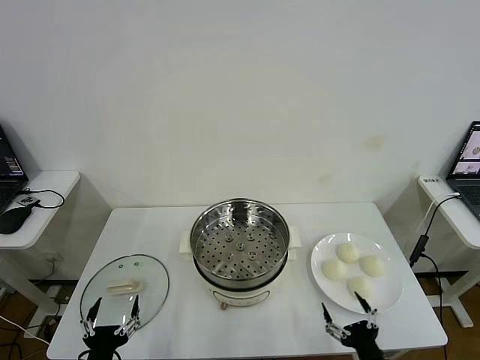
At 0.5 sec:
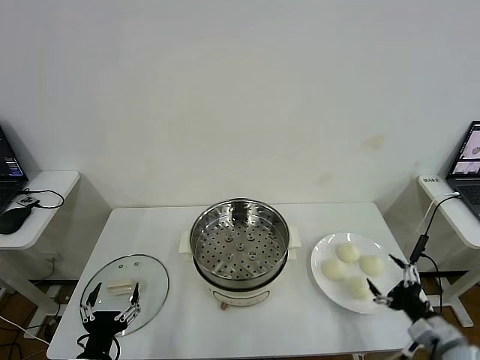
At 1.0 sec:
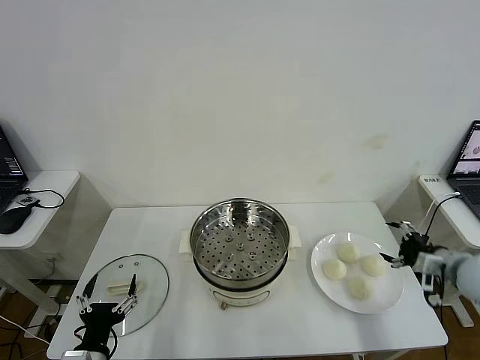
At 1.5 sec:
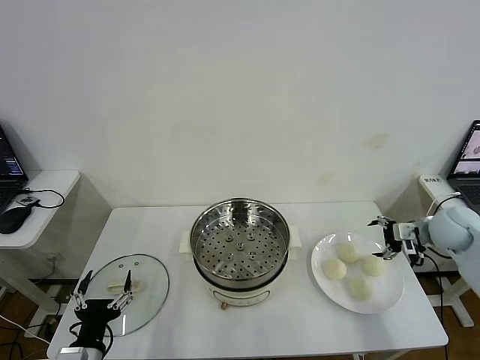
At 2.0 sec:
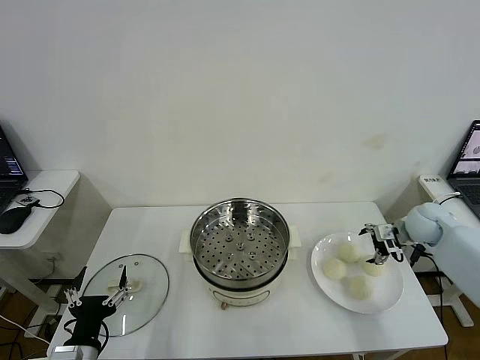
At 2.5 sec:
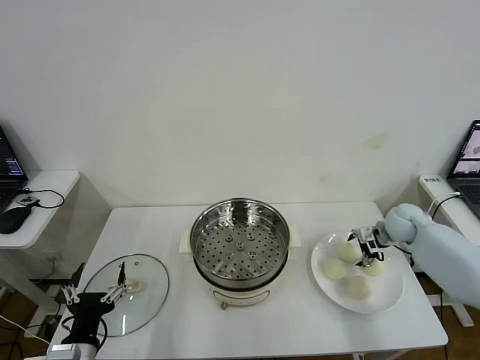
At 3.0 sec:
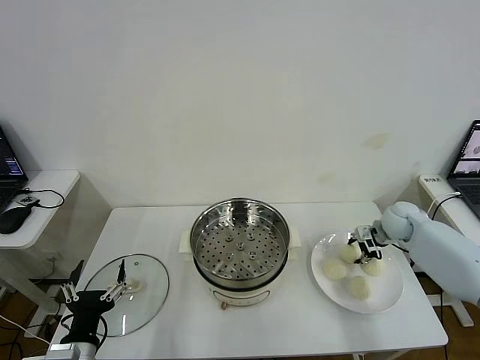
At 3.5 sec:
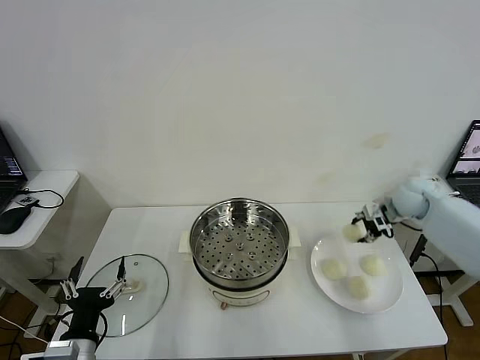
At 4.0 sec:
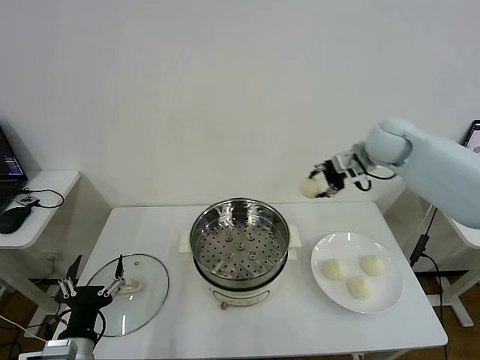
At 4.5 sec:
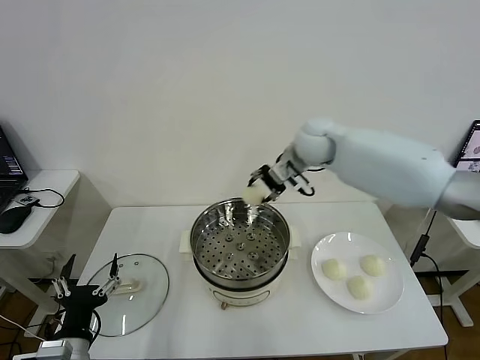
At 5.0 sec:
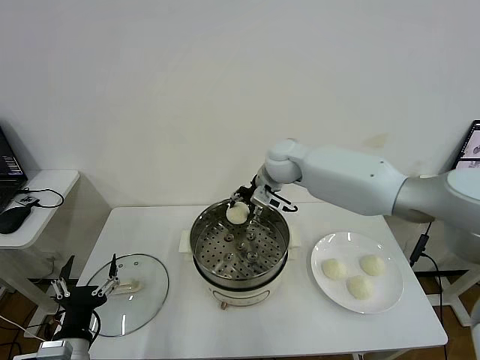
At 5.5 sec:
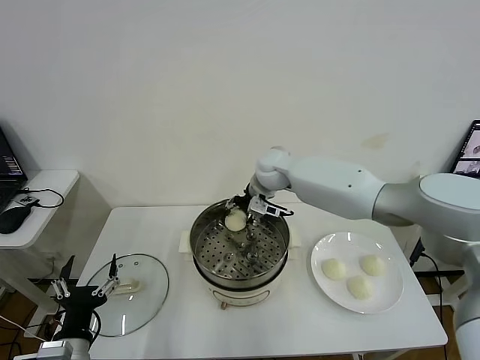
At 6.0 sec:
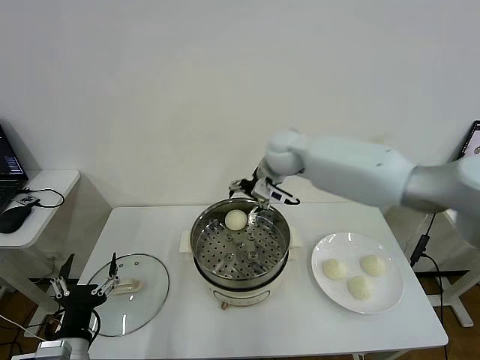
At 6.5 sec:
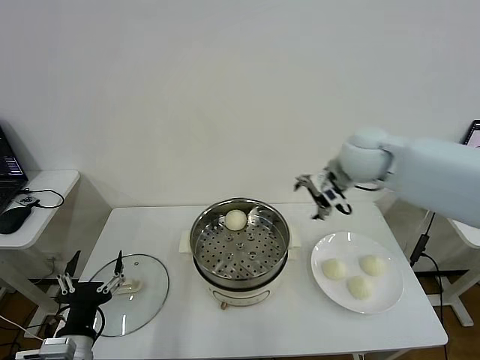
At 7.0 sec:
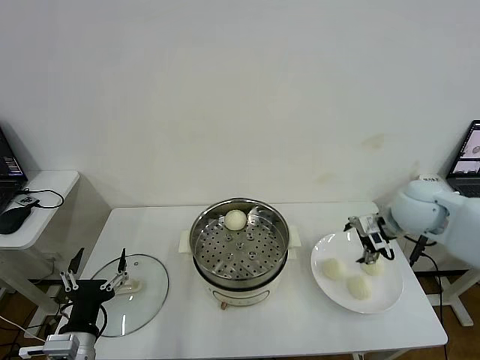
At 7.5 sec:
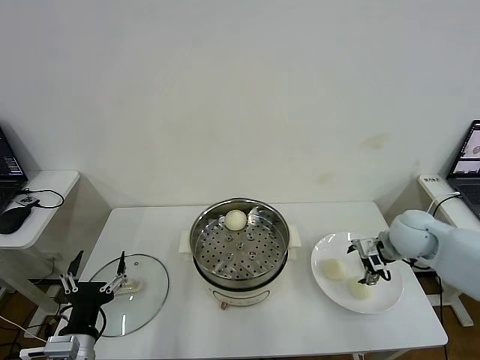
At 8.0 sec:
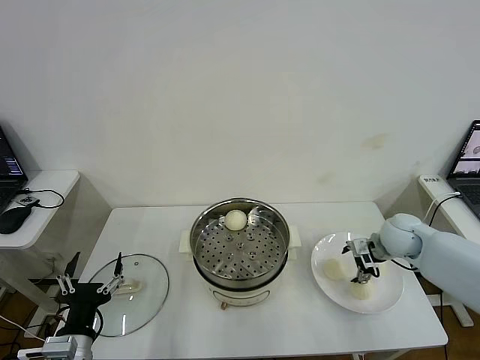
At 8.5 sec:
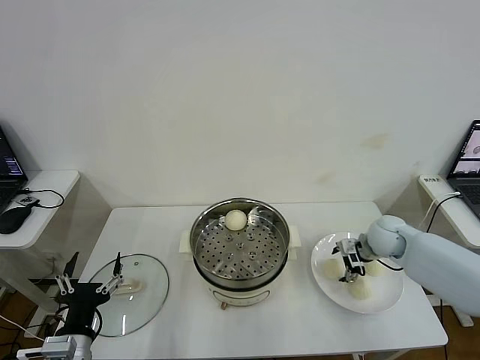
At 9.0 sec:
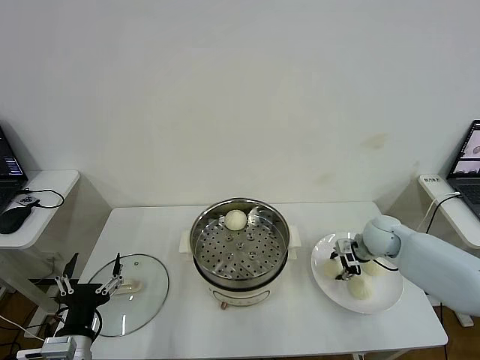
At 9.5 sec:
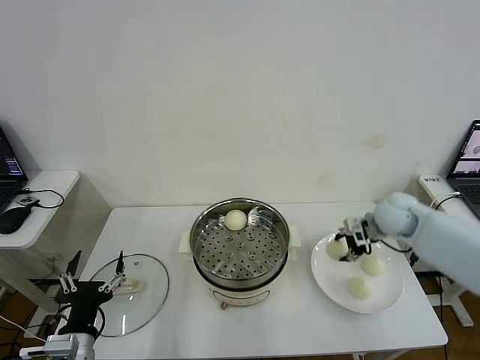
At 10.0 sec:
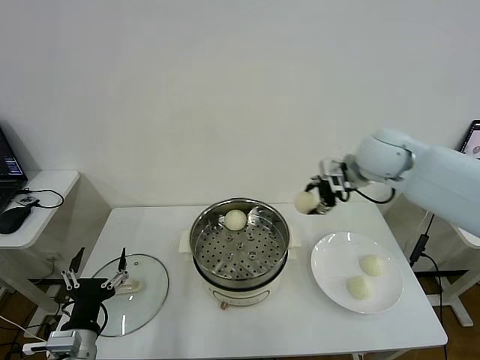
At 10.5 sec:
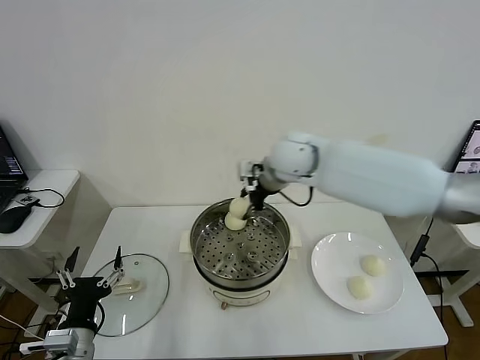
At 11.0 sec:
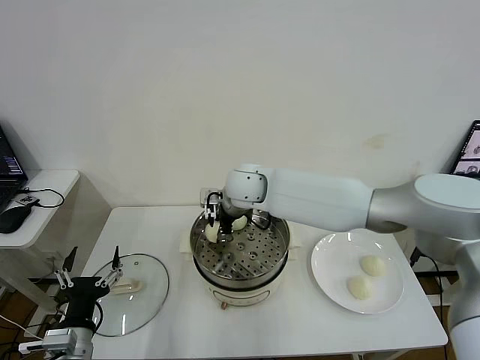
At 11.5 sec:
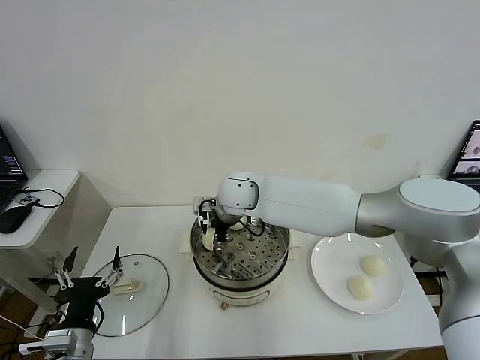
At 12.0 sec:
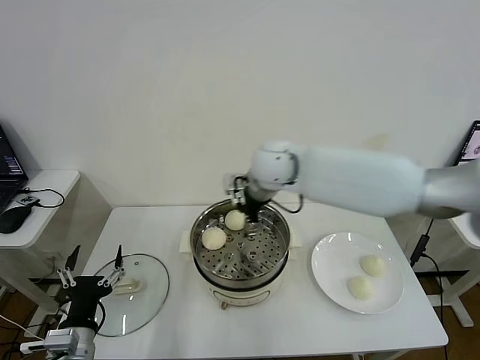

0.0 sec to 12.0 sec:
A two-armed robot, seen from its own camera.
Step, 0.0 sec to 2.5 sec: Grasp the baozi in the plate with right gripper.
Step, 3.0 sec to 5.5 sec: Place the baozi on the steamer with right gripper.
Step, 6.0 sec to 9.0 sec: Grasp the baozi in the plate with right gripper.
Step, 9.5 sec to 11.5 sec: Place the baozi on the steamer with right gripper.
2.0 sec to 4.0 sec: The right gripper goes about 25 cm upward and to the left, and closes.
4.0 sec to 6.0 sec: The right gripper goes approximately 15 cm to the left, and opens its fingers.
6.0 sec to 8.0 sec: The right gripper heads to the right and downward, covering about 30 cm.
8.0 sec to 10.0 sec: The right gripper moves upward and to the left, about 25 cm, and closes.
10.0 sec to 12.0 sec: The right gripper goes some 15 cm to the left, and opens its fingers.

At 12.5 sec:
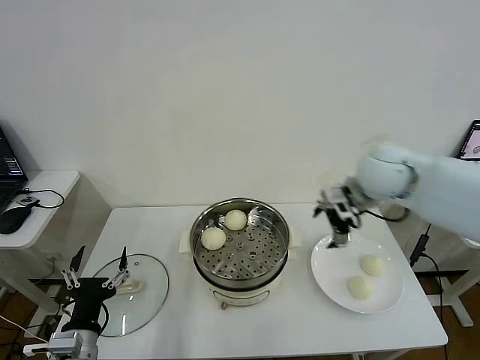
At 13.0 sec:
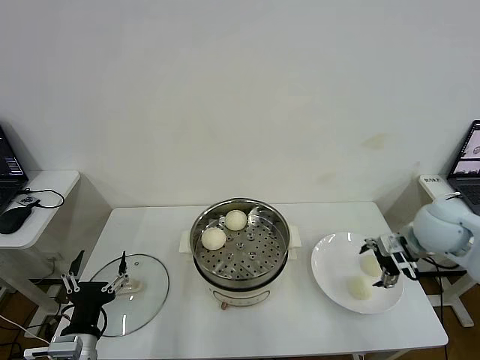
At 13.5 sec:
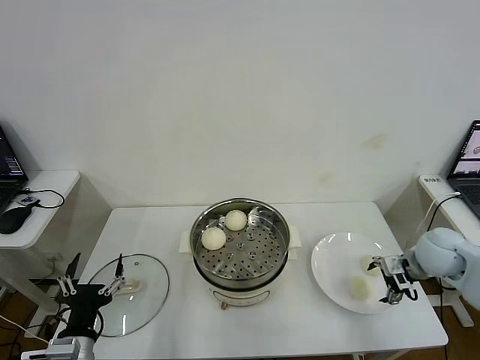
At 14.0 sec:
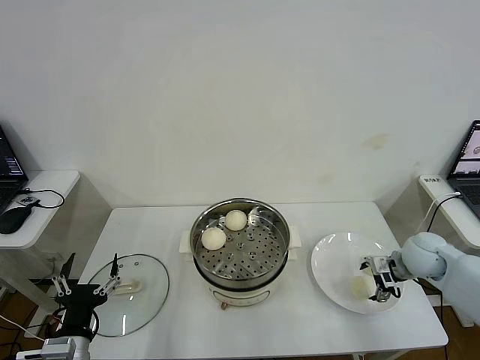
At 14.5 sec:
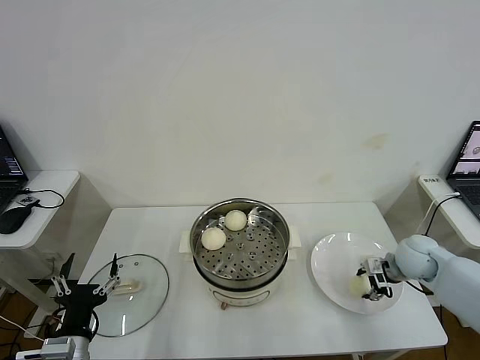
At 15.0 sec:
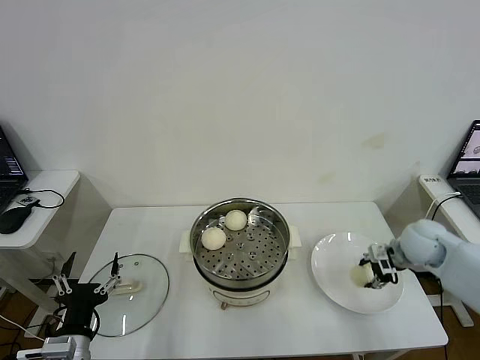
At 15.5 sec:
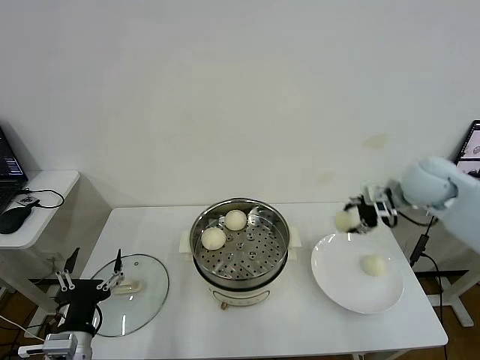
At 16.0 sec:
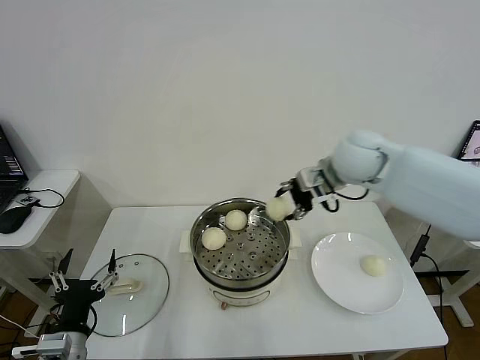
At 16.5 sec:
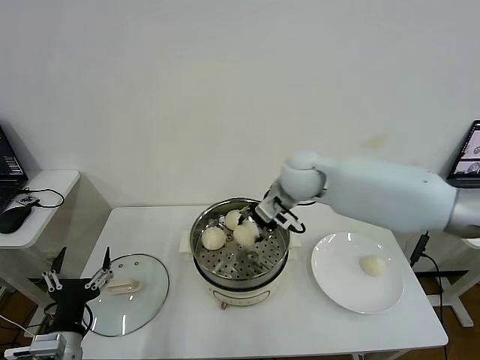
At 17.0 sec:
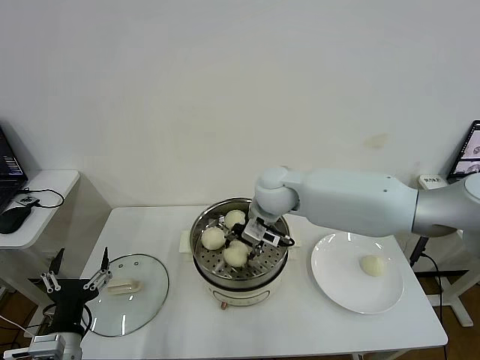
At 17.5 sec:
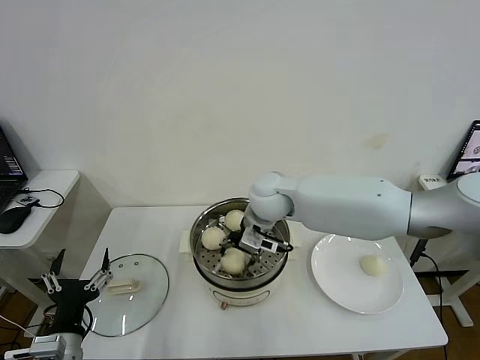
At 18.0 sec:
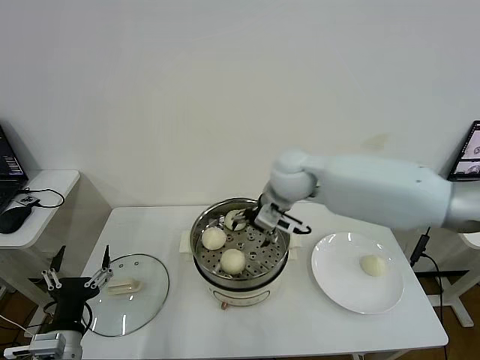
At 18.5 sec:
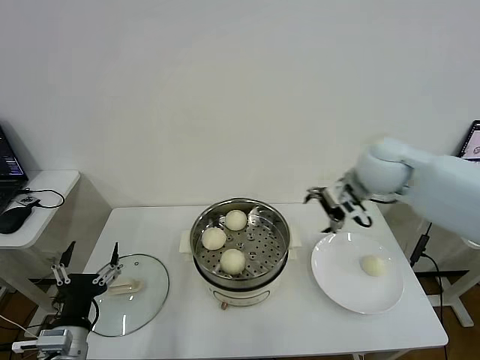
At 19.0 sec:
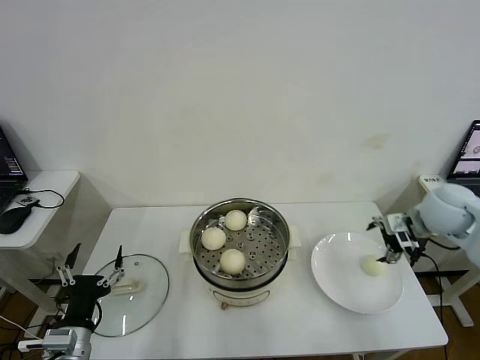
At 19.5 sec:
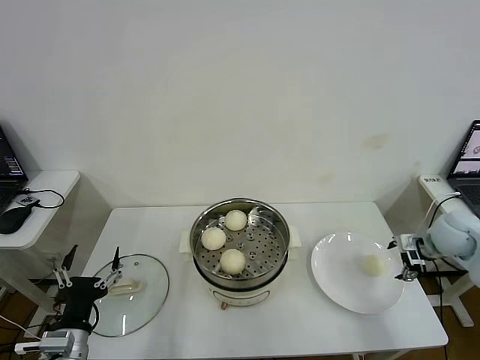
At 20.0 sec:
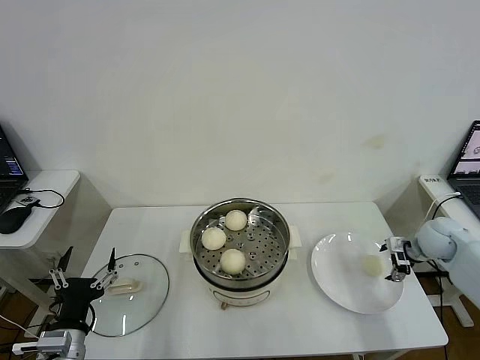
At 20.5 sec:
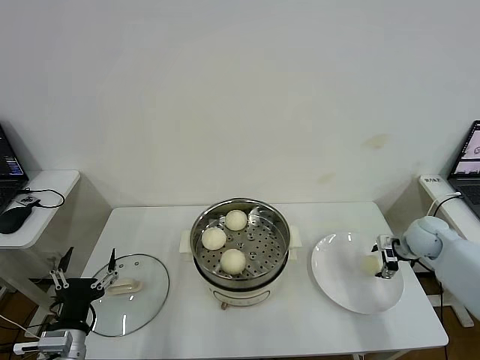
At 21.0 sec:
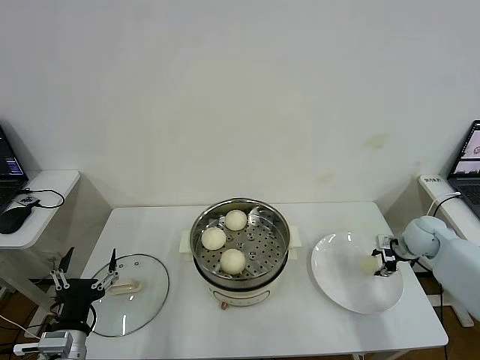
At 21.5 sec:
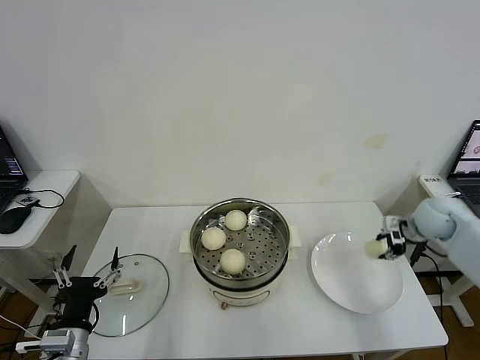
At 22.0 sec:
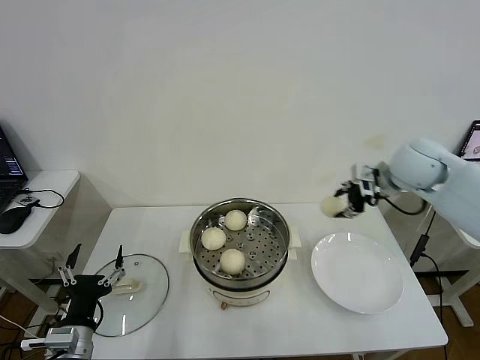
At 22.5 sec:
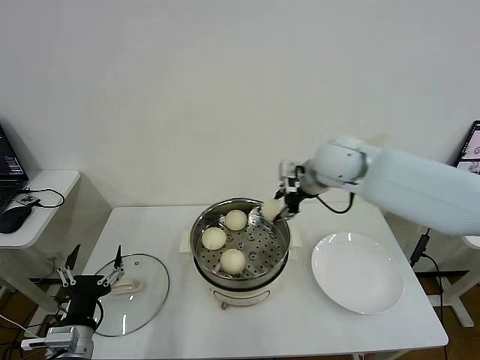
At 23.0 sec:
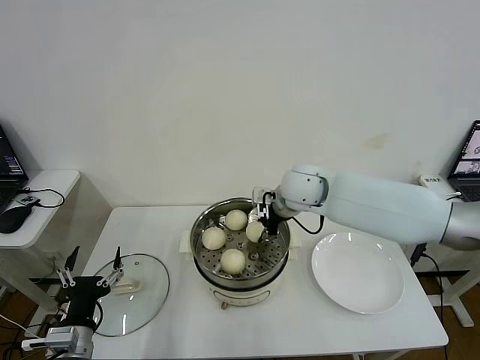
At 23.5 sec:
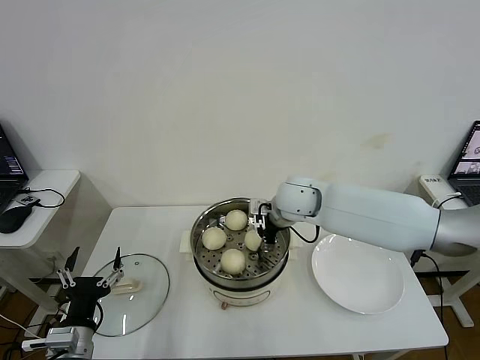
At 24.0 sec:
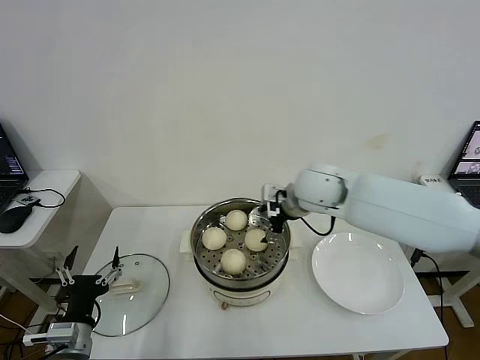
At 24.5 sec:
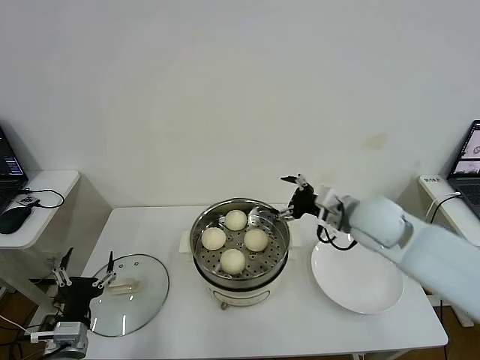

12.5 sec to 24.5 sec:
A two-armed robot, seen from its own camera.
Step, 12.5 sec to 14.0 sec: Grasp the baozi in the plate with right gripper.
Step, 15.0 sec to 17.5 sec: Place the baozi on the steamer with right gripper.
Step, 18.0 sec to 20.5 sec: Grasp the baozi in the plate with right gripper.
Step, 21.0 sec to 23.5 sec: Place the baozi on the steamer with right gripper.
12.5 sec to 14.5 sec: The right gripper is displaced downward and to the right by approximately 25 cm, and closes up.
14.5 sec to 16.5 sec: The right gripper heads to the left and upward, covering approximately 35 cm.
16.5 sec to 18.5 sec: The right gripper shifts approximately 15 cm to the right, and opens.
18.5 sec to 20.5 sec: The right gripper shifts some 30 cm downward and to the right.
20.5 sec to 22.5 sec: The right gripper is displaced to the left and upward by approximately 35 cm, and closes.
22.5 sec to 24.5 sec: The right gripper goes roughly 15 cm backward, downward and to the right, and opens up.

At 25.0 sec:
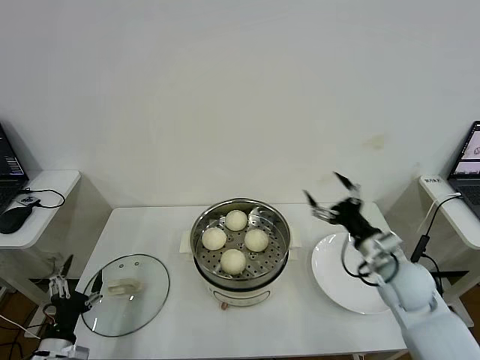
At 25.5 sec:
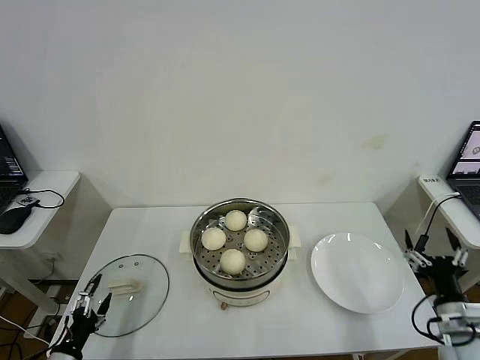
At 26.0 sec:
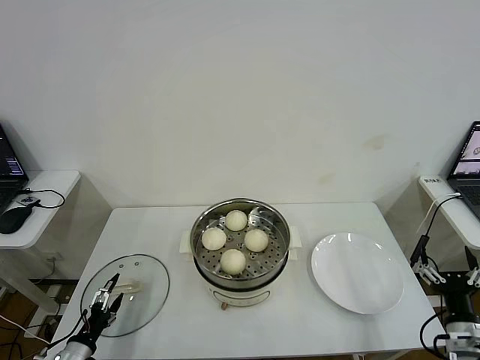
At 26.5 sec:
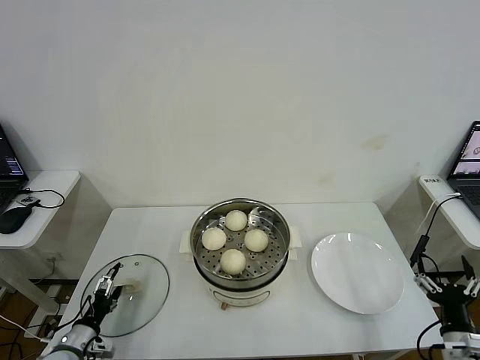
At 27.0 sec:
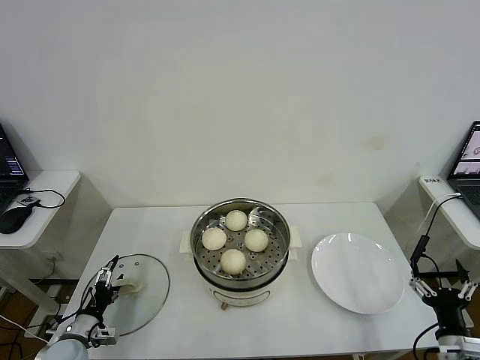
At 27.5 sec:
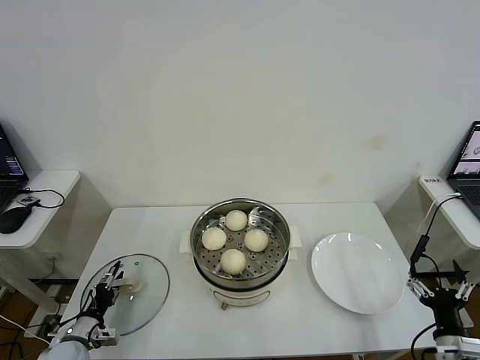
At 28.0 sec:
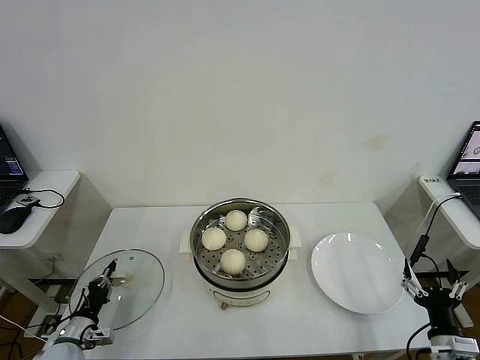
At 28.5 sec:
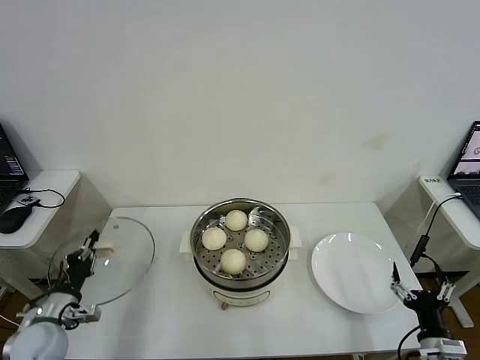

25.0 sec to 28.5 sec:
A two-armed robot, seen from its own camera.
Step, 25.0 sec to 27.5 sec: Grasp the pot lid with left gripper.
25.0 sec to 27.0 sec: The right gripper heads backward, downward and to the right, covering some 25 cm. The left gripper is displaced forward and downward by approximately 10 cm.
27.0 sec to 28.5 sec: The left gripper is displaced upward by approximately 10 cm, and closes.
